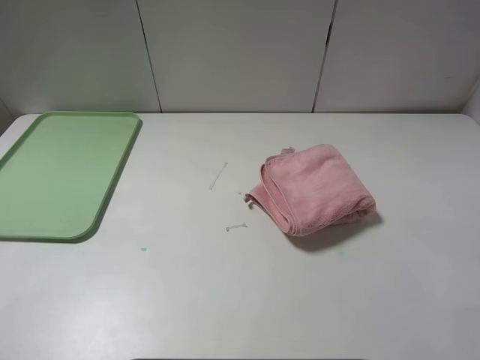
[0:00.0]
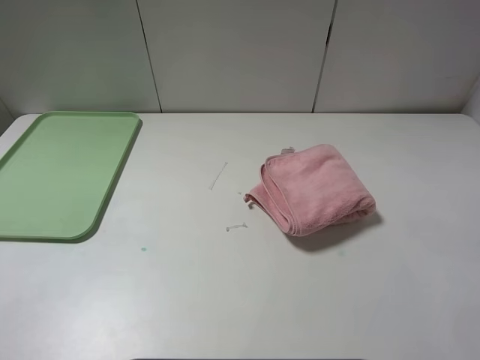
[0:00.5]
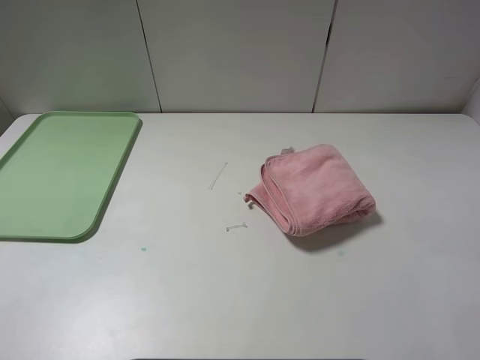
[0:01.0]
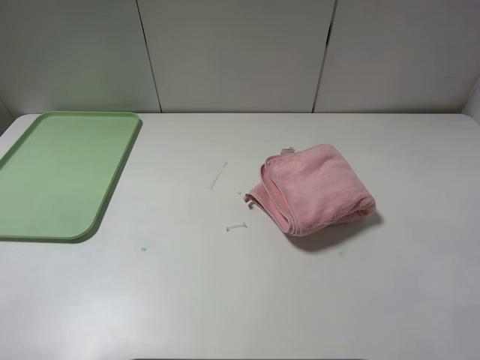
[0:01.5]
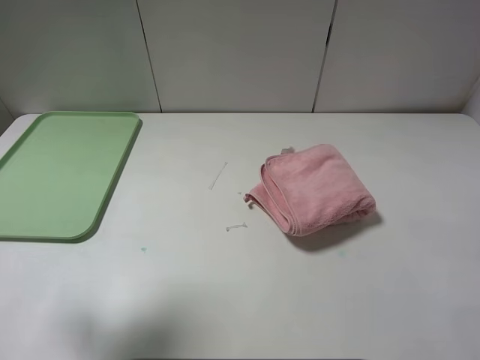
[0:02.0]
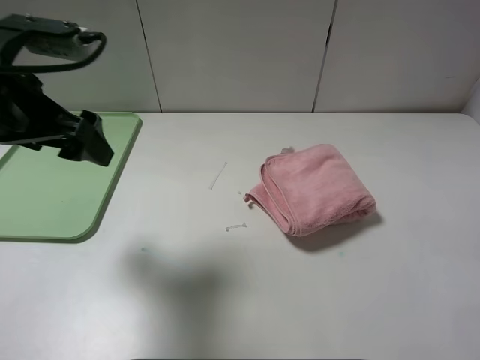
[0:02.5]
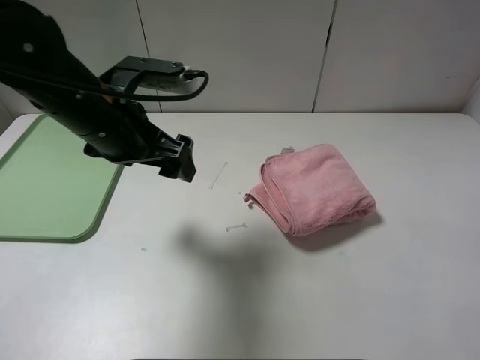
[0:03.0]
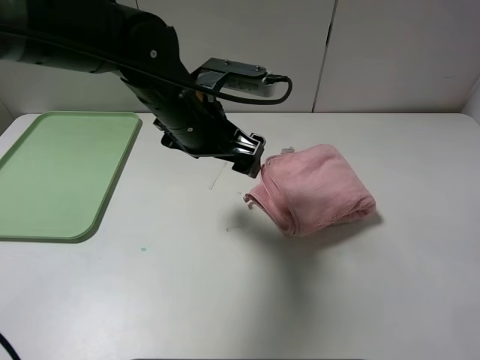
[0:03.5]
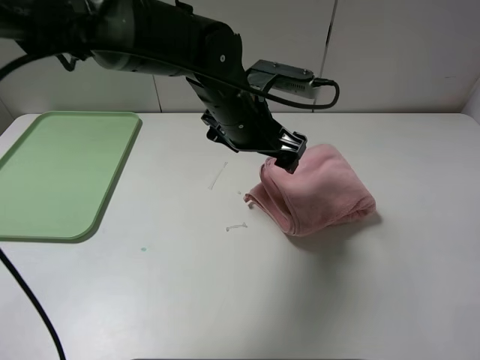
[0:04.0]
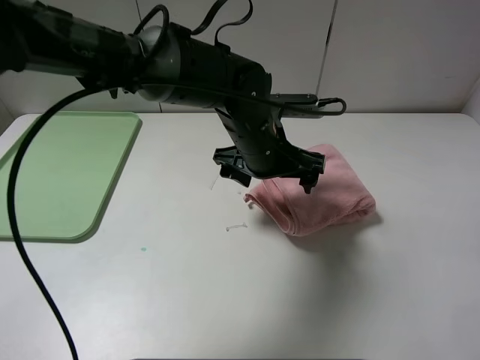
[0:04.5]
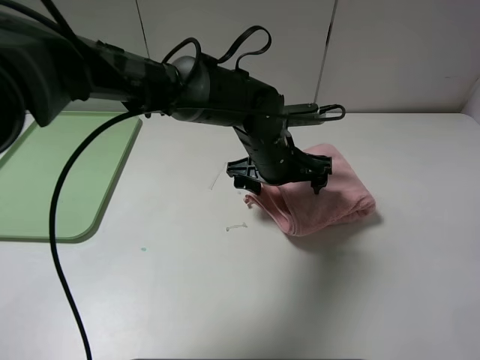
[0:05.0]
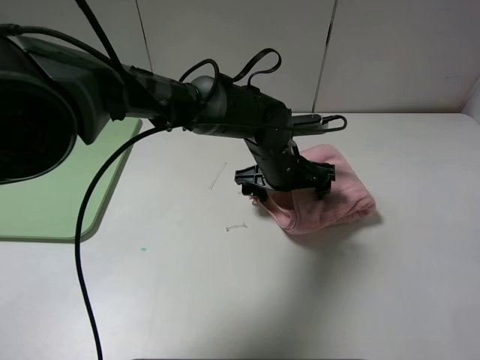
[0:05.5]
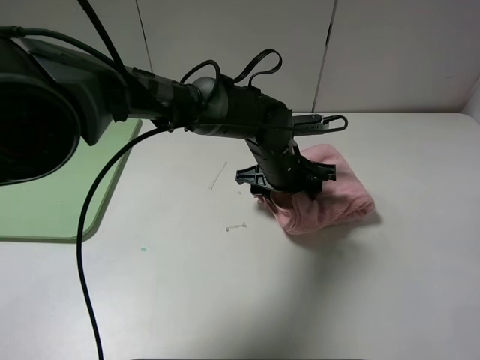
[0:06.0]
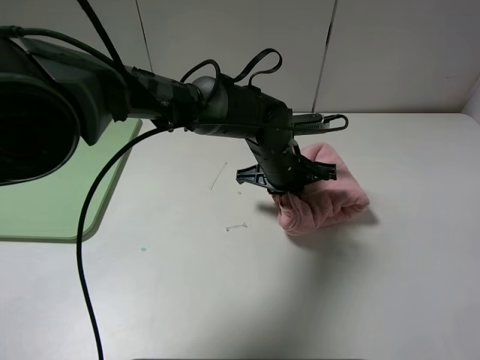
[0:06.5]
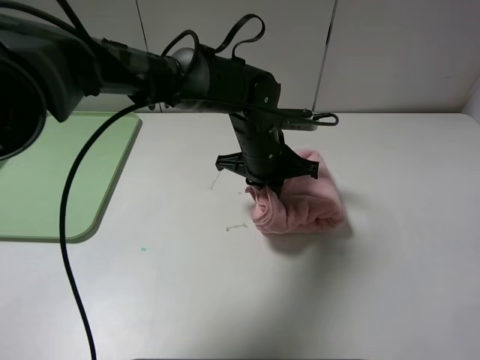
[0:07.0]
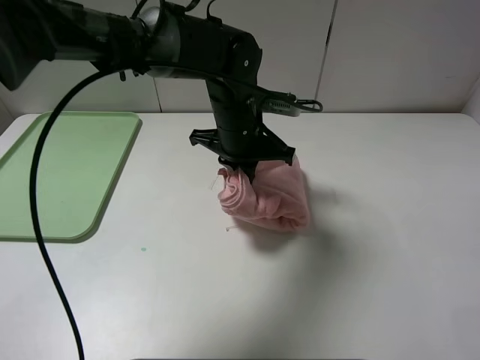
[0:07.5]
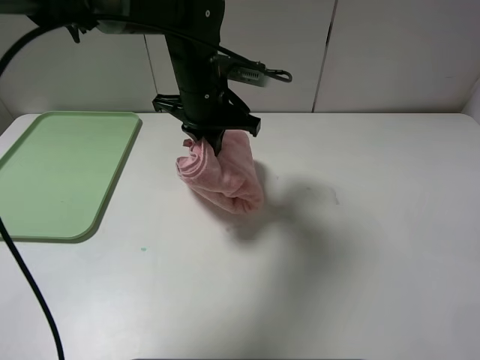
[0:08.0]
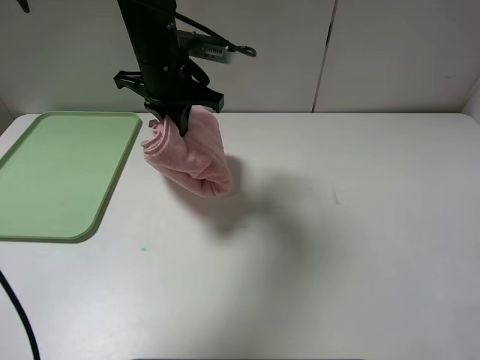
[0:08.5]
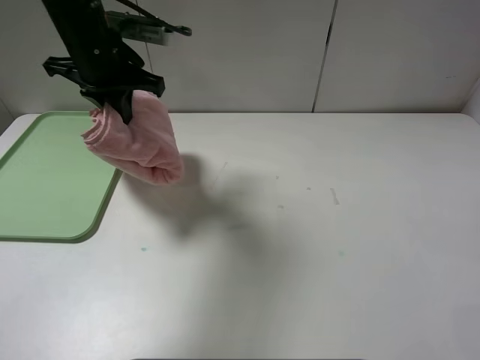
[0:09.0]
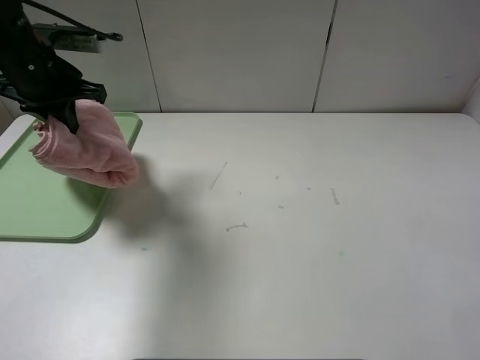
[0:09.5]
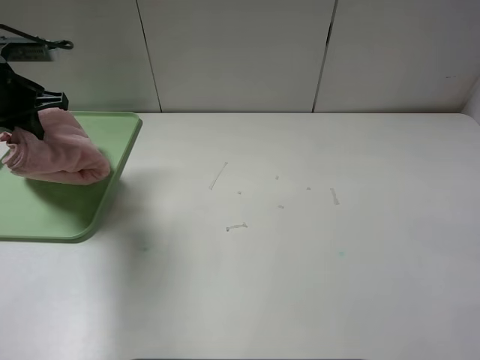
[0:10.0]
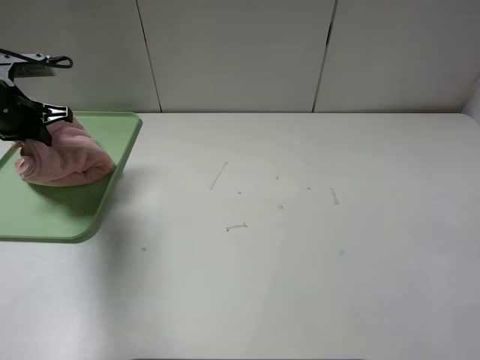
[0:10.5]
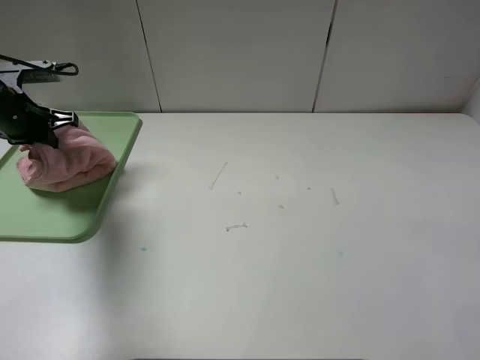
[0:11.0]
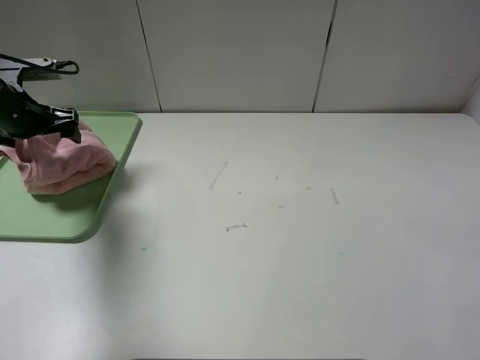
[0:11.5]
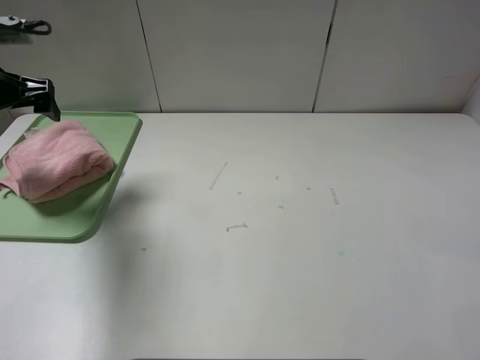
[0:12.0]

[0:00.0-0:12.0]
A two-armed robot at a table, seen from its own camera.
Step, 0:00.0 to 0:11.5: Place the folded pink towel on the tray with the left gripper.
0:00.0 to 0:02.0: The left gripper heads forward, covering approximately 15 cm.
0:02.0 to 0:04.0: The left gripper goes approximately 35 cm to the right, forward and downward.
0:04.0 to 0:06.0: The left gripper travels downward and to the right by roughly 10 cm.
0:06.0 to 0:08.0: The left gripper goes some 15 cm to the left and upward, and closes its fingers.
0:08.0 to 0:10.0: The left gripper is displaced to the left by approximately 30 cm.
0:10.0 to 0:12.0: The left gripper opens its fingers.

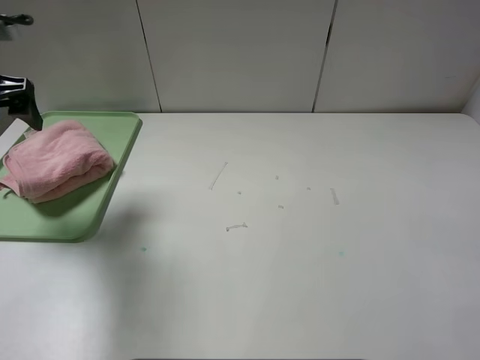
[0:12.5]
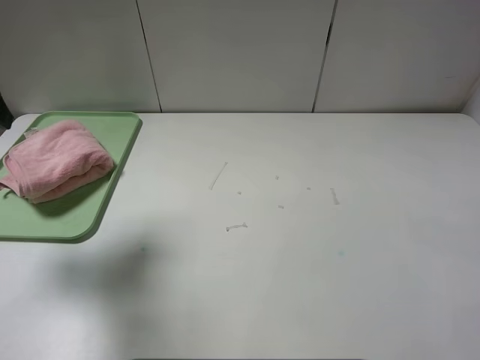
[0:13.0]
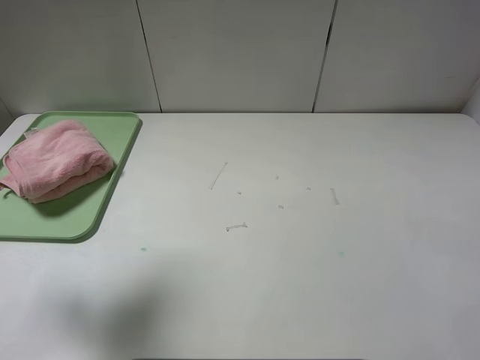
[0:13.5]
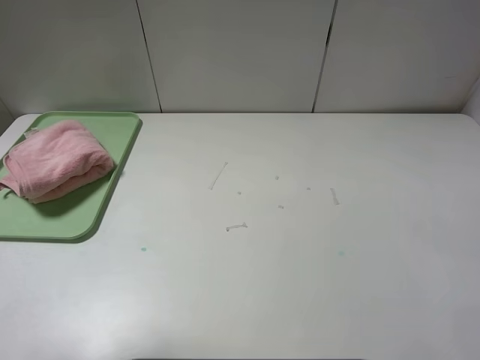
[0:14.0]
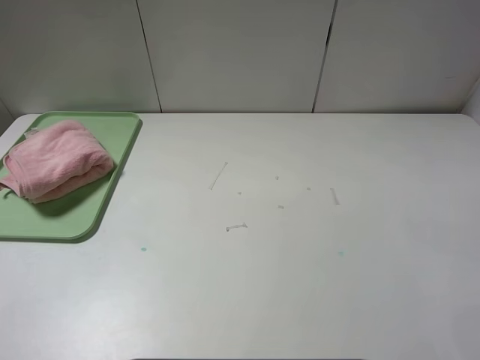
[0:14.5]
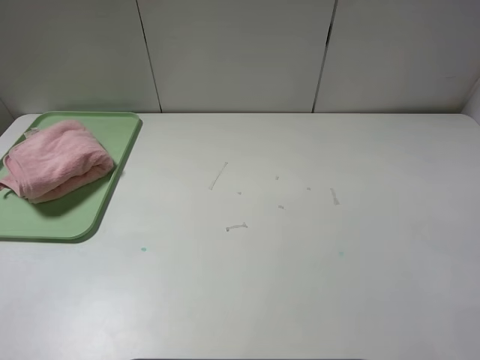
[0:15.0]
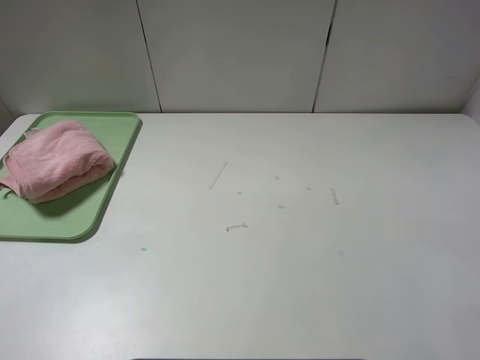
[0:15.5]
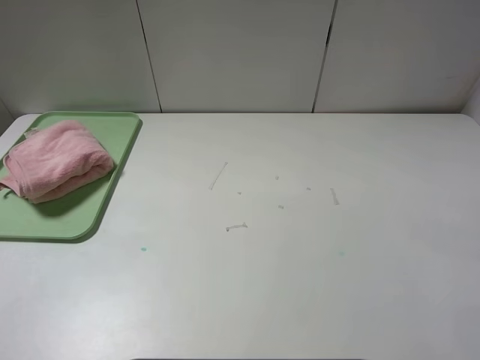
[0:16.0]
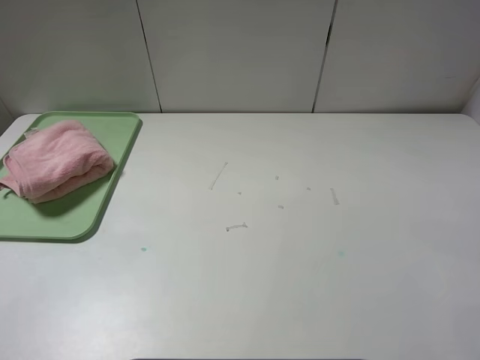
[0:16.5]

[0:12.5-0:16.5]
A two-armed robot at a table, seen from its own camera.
0:12.5 to 0:14.5: The left gripper is displaced backward by some 30 cm.
